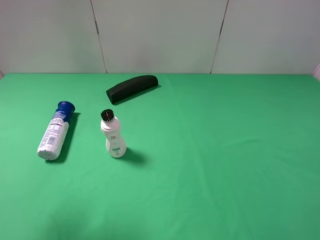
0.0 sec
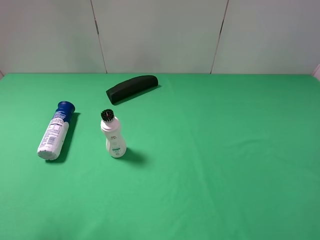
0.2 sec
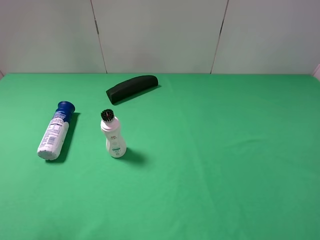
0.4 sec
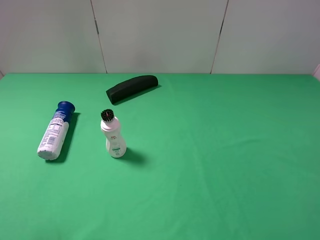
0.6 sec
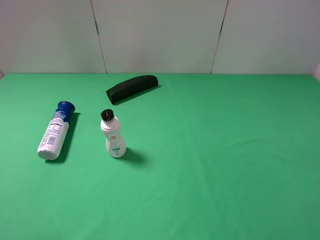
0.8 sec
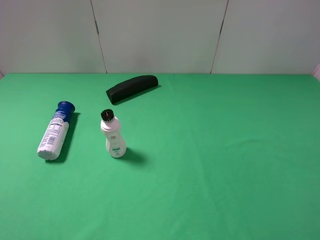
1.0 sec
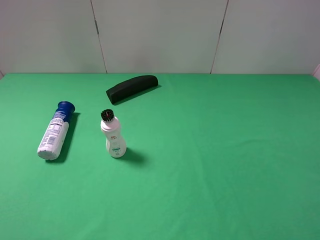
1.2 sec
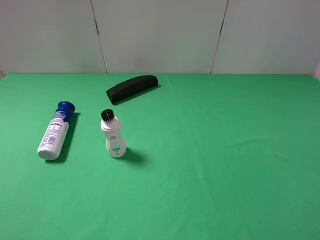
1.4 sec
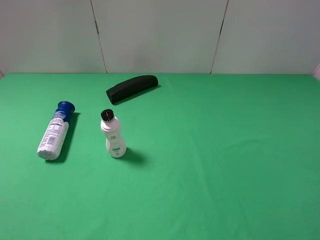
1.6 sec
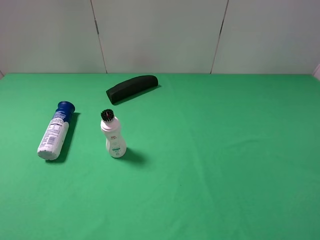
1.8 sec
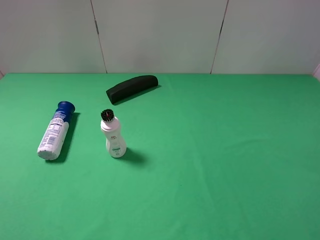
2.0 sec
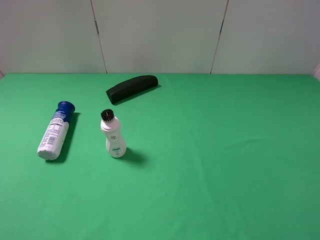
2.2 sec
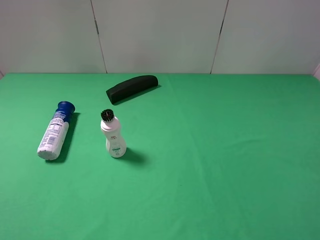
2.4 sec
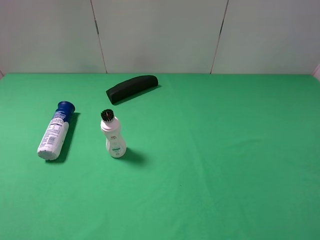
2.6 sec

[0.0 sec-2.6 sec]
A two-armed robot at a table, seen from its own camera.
Task of the whole recording: use the right gripper to pick up the item and transfer it from the right gripper to the left gripper.
0.0 sec to 1.2 sec: The left gripper is displaced backward and downward by roughly 10 cm.
